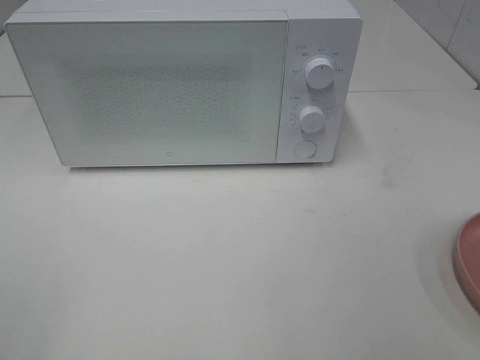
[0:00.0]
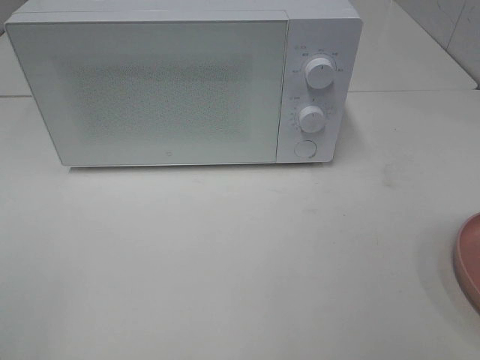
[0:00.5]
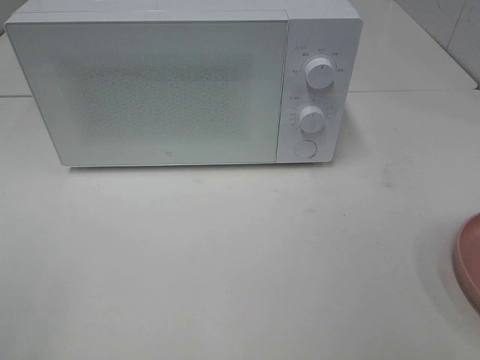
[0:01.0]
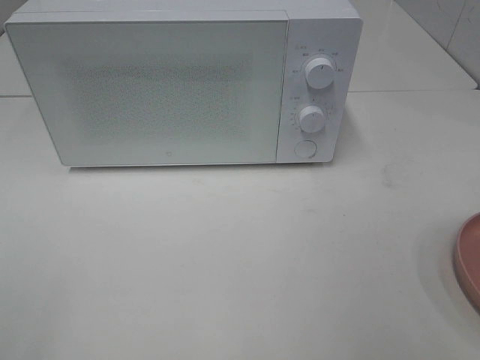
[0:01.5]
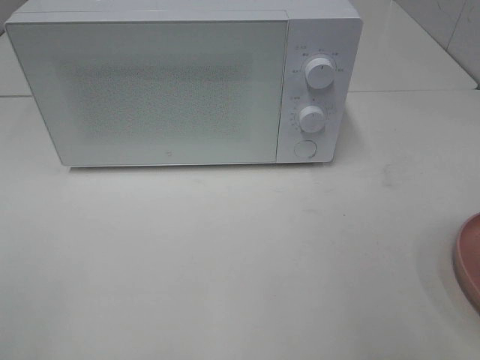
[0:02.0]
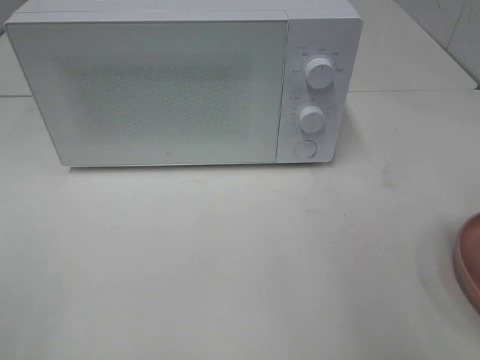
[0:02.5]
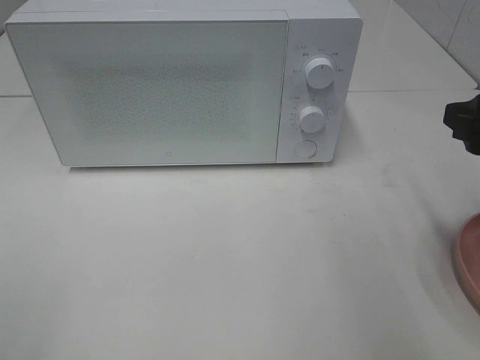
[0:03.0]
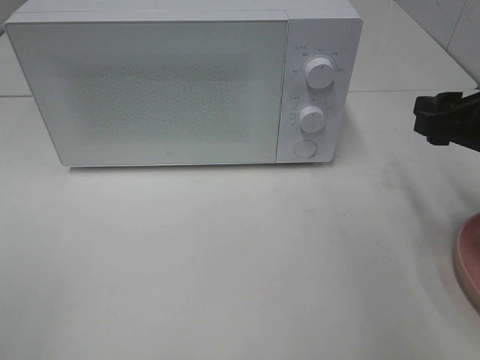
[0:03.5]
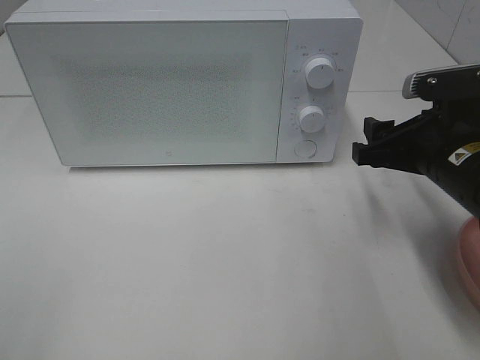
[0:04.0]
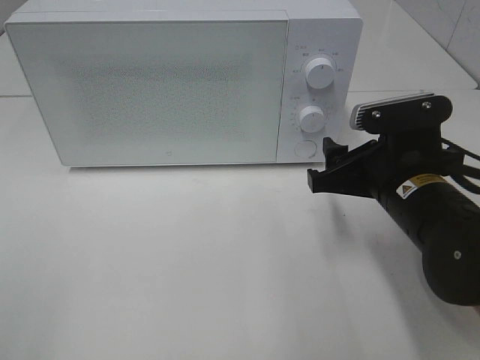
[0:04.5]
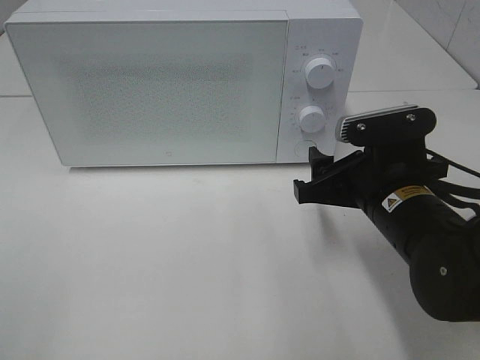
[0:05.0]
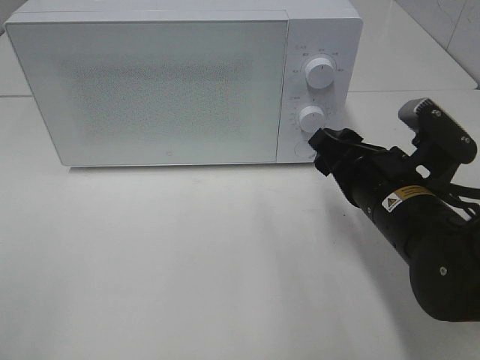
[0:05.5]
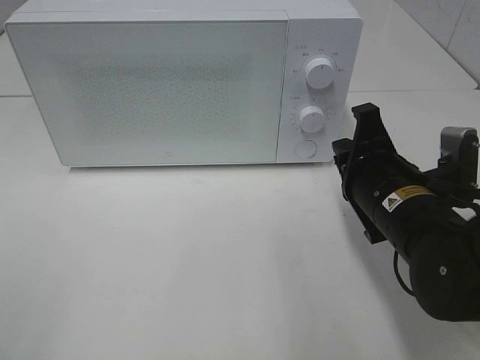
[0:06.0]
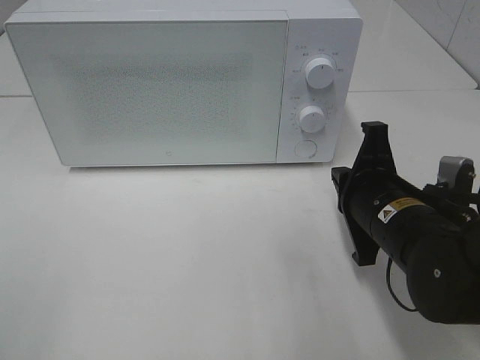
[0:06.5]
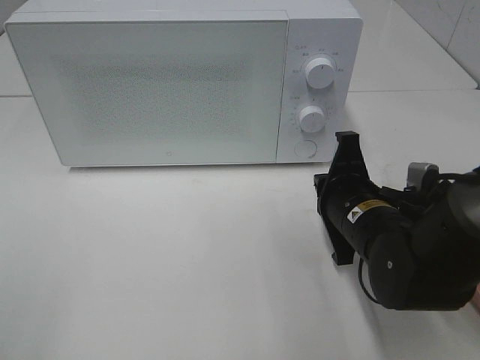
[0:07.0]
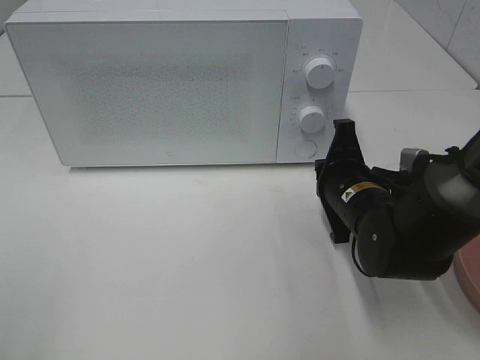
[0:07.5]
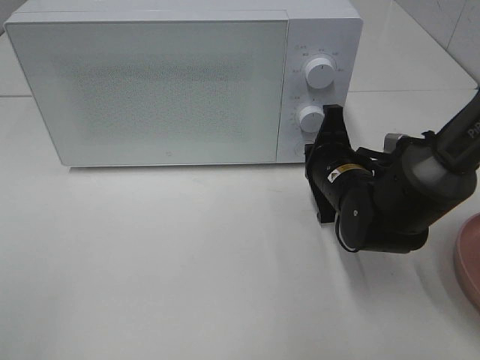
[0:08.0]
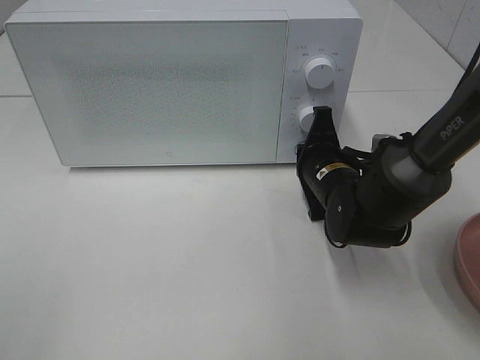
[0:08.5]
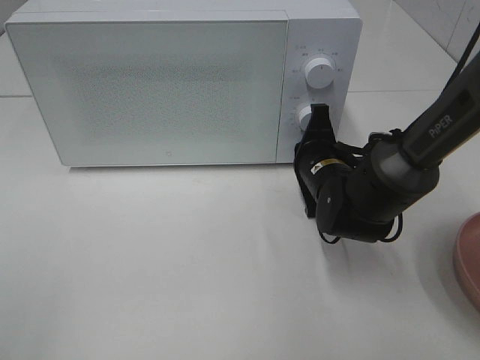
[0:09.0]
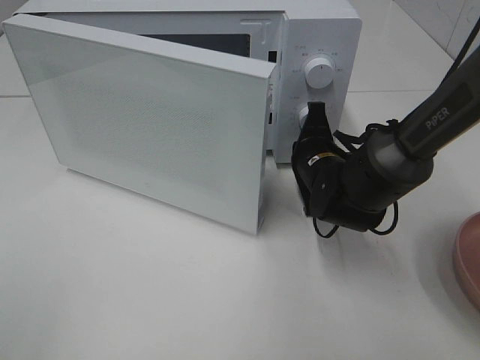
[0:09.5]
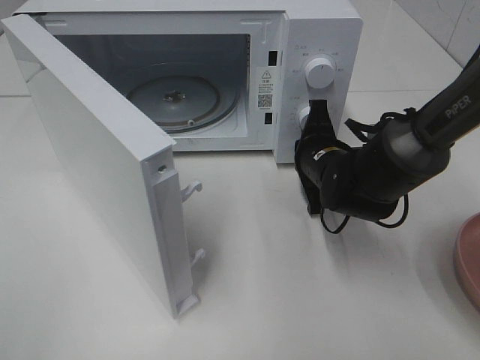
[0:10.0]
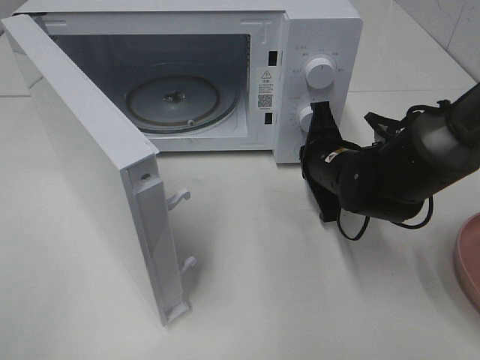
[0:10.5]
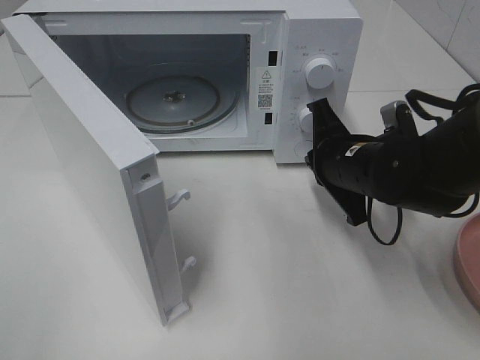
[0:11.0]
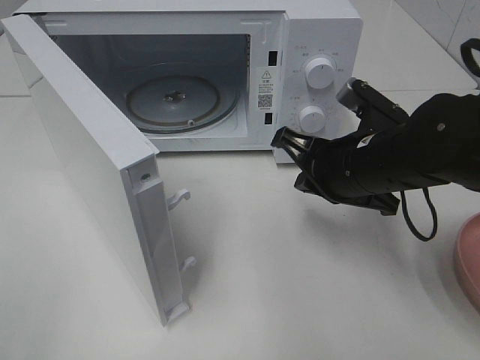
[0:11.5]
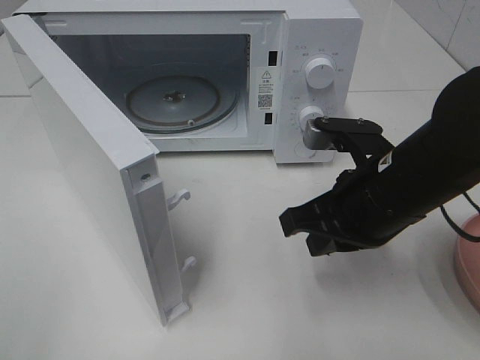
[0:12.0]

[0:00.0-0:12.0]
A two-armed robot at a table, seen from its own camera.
Task of the whole recording: Heat the burger.
Step, 0:00.0 to 0:10.5: Right hand: press the switch.
0:02.0 to 0:04.0: The right gripper heads forward and downward, covering some 20 cm.
0:04.0 to 0:06.0: The right gripper is displaced to the left by some 5 cm, and closes up.
0:06.0 to 0:08.0: The right gripper is displaced forward and downward by about 10 cm.
0:10.0 to 0:12.0: The right gripper heads backward and upward, covering roughly 15 cm.

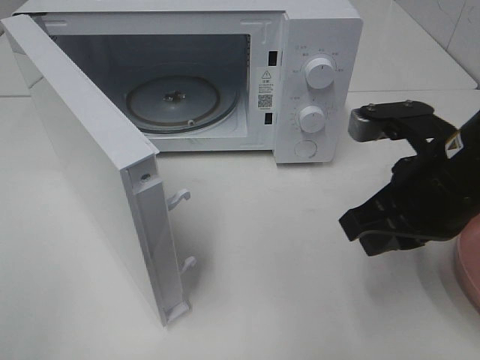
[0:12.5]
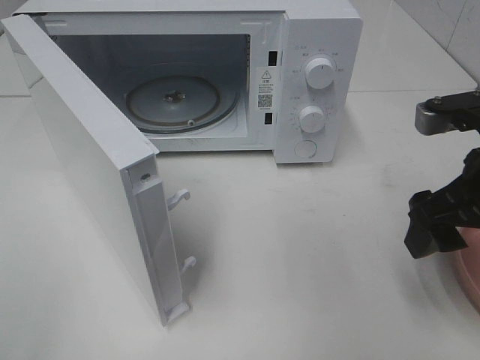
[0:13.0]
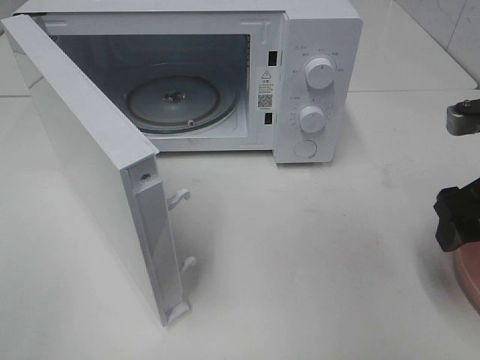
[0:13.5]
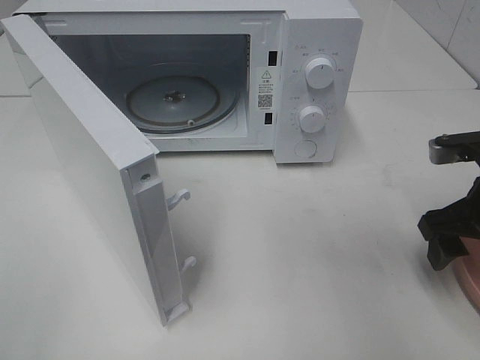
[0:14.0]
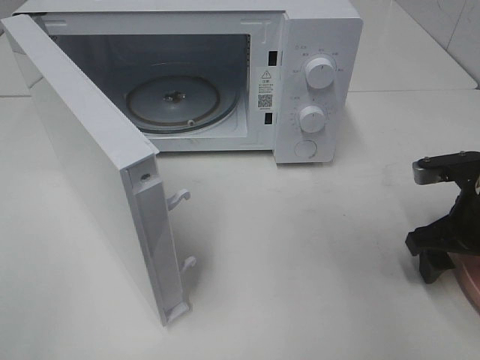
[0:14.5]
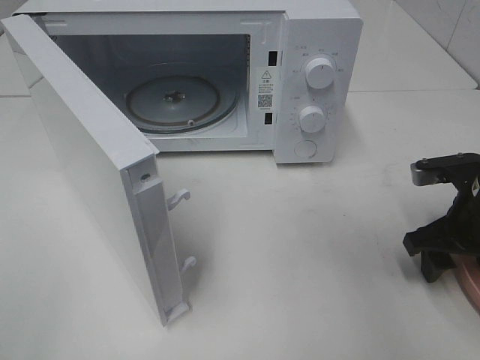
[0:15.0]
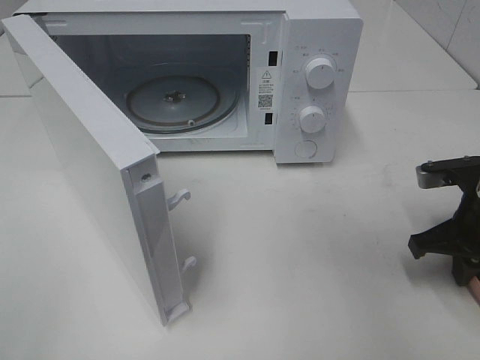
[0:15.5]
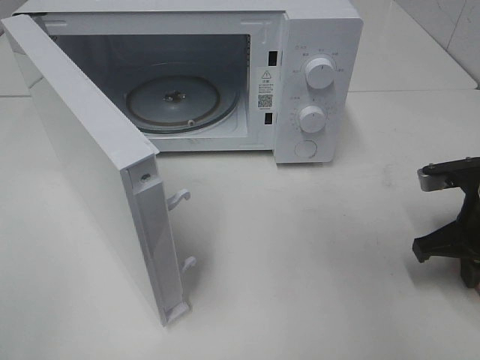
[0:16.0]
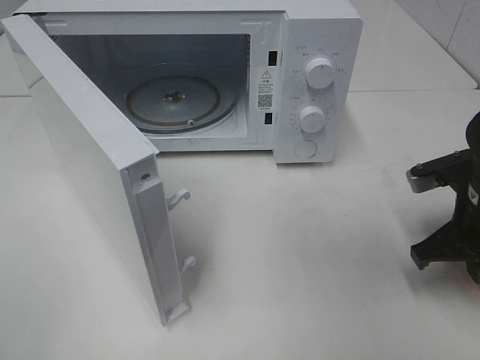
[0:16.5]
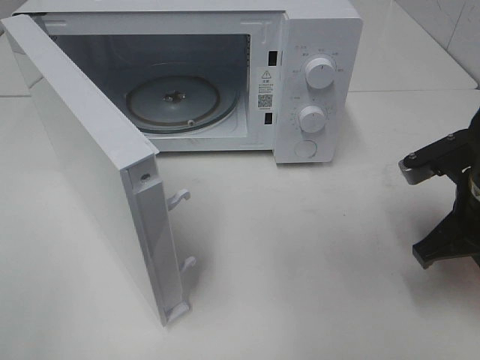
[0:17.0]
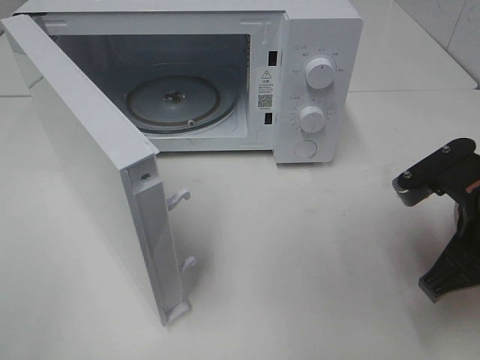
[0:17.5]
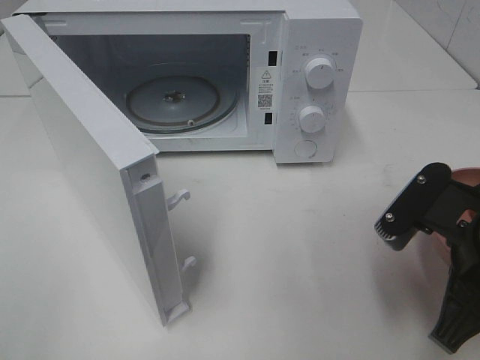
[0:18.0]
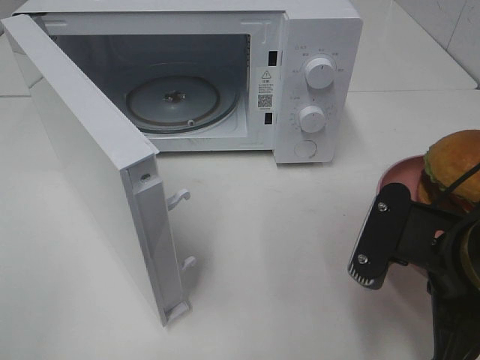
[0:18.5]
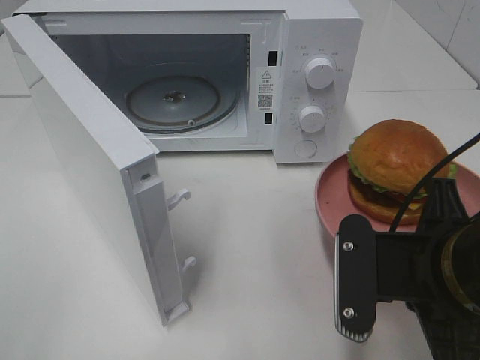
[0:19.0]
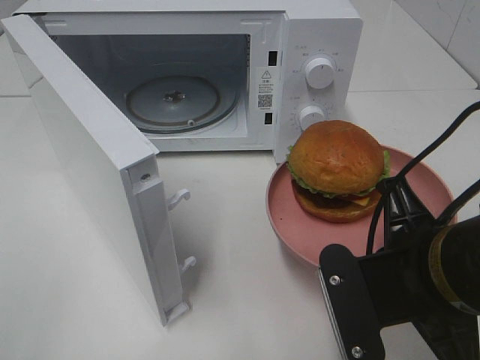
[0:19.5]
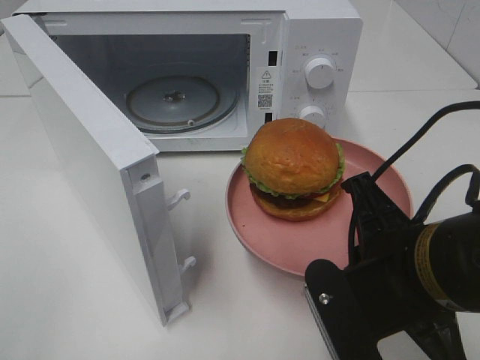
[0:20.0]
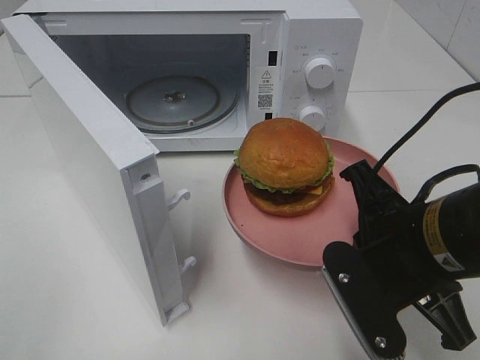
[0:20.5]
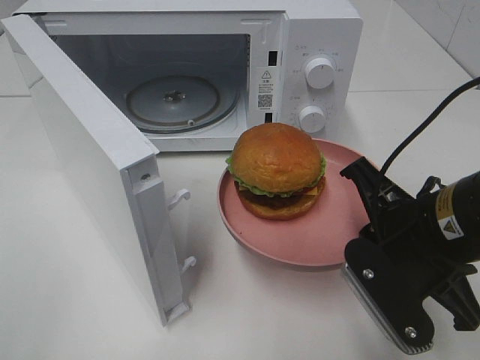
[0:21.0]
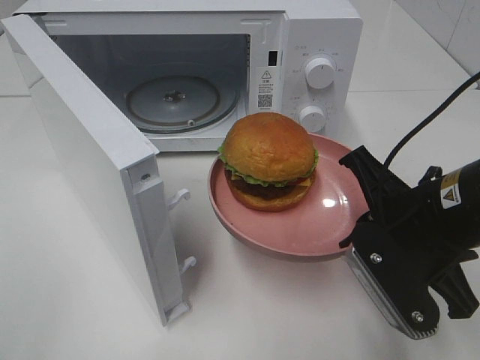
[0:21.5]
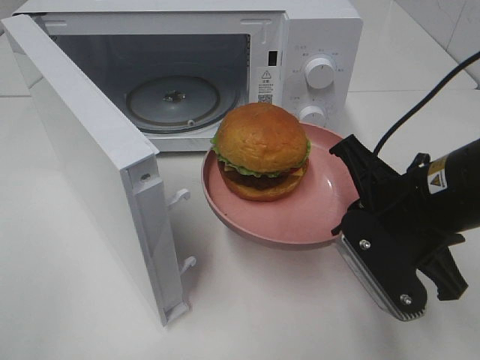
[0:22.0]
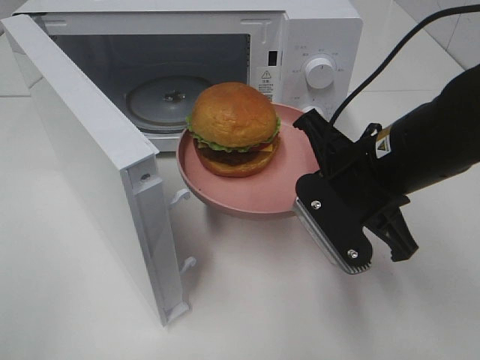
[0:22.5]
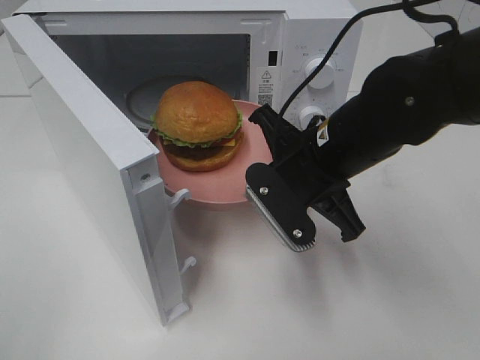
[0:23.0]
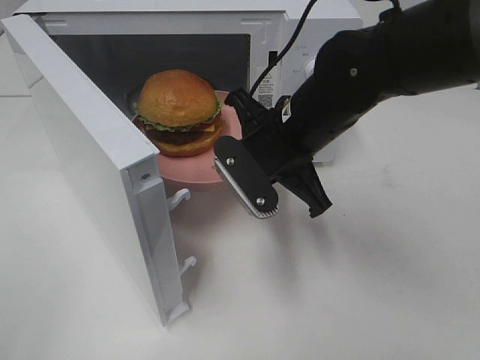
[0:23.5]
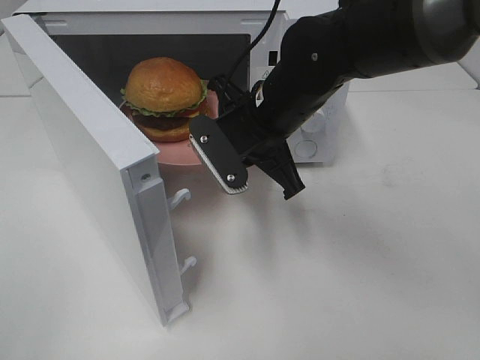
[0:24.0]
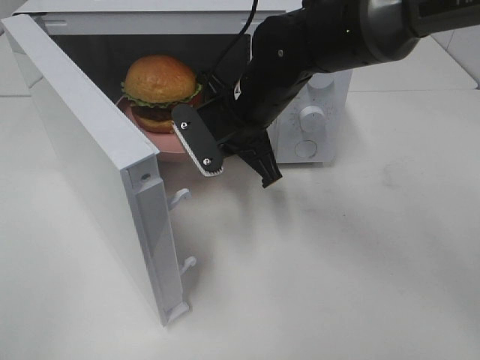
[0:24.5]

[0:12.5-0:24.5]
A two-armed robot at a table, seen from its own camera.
Task of the whole recording: Heat the burger.
Step, 0:12.5 to 0:16.0: Right hand: grab the plate with the hamburger.
0:12.5 to 0:14.5: The right gripper travels to the right and downward by some 15 cm, and opens its fingers.
0:14.5 to 0:16.5: The right gripper closes its fingers.
0:16.5 to 0:18.5: The right gripper is displaced backward and to the left by some 15 cm.
0:20.5 to 0:22.5: The right gripper travels forward by about 5 cm.
0:22.5 to 0:24.5: The right gripper moves forward and to the left, about 15 cm.

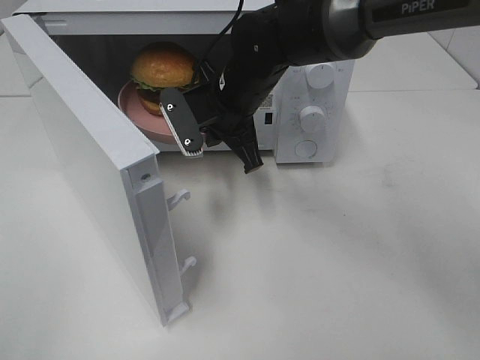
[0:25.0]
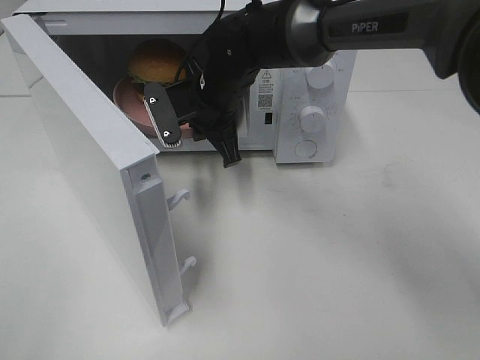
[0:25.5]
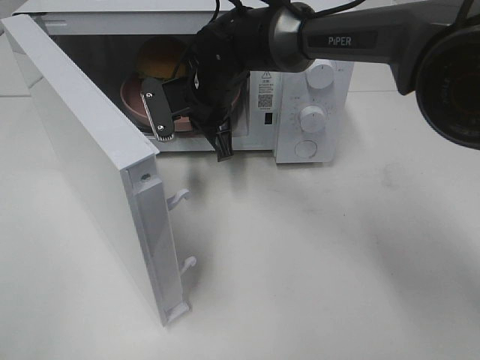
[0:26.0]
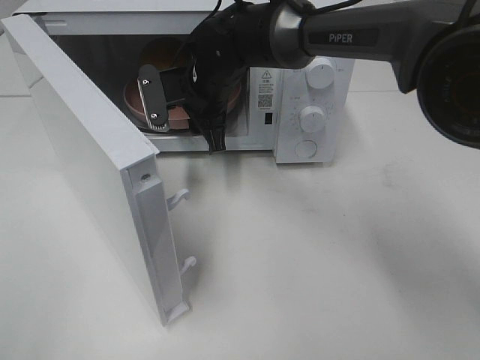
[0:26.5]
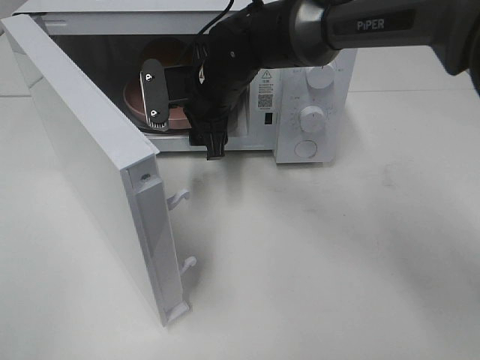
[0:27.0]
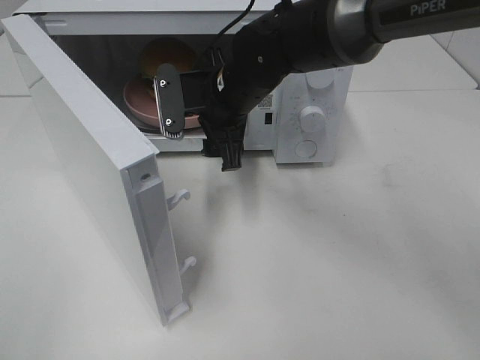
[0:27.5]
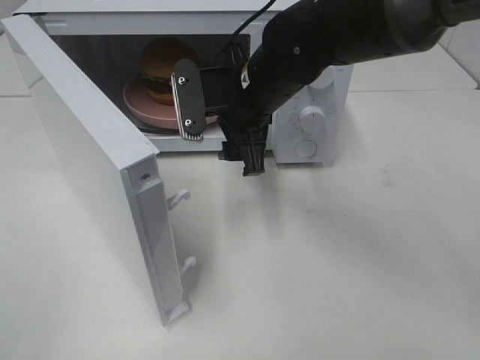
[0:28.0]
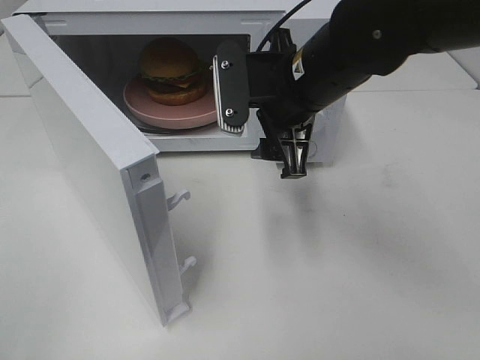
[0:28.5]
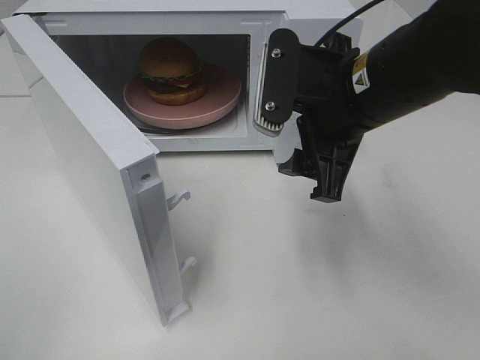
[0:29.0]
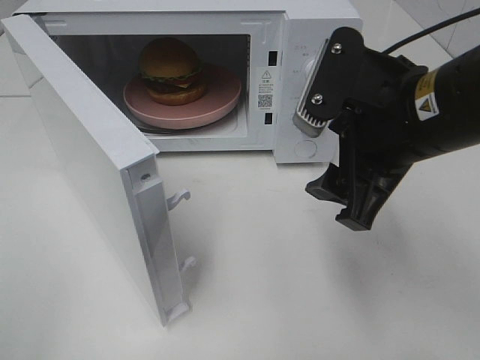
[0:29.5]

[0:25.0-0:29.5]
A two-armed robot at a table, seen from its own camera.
Task of the whole recording: Heat the burger.
0:25.0 to 0:27.0: The right gripper opens.
0:27.0 to 0:29.5: The right gripper shifts about 25 cm backward, to the right and upward.
